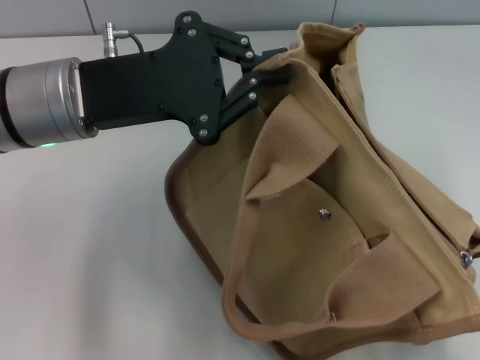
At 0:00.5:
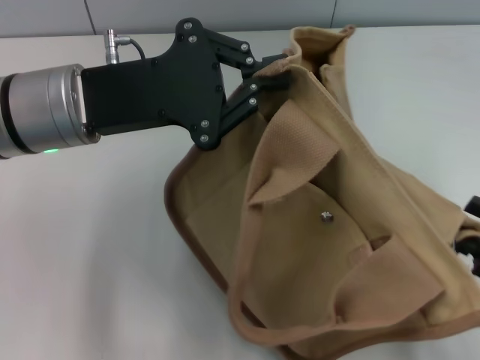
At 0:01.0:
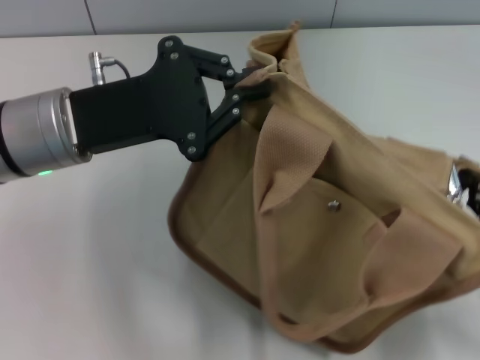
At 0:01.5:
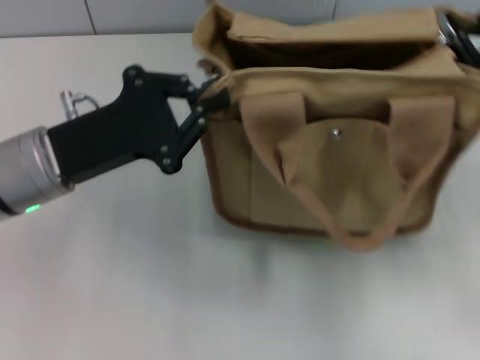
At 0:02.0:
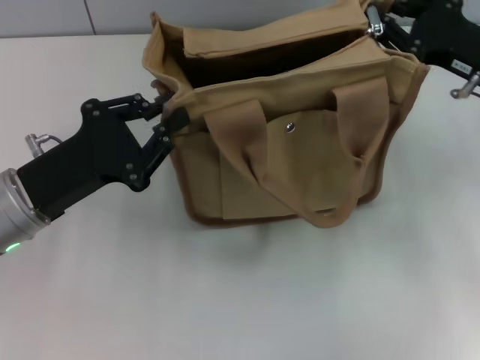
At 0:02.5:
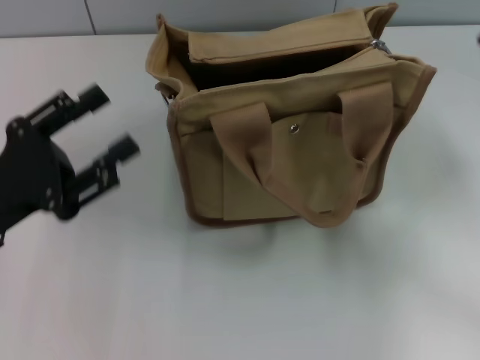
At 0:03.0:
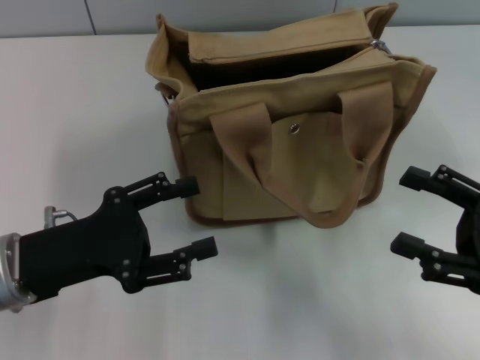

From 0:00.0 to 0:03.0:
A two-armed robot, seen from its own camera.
Step, from 0:00.5 to 0:02.0: Grab the bag with your left hand.
From 0:00.0 to 0:01.5: The right gripper goes some 20 cm forward, and opens, then closes once more. Meanwhile the left gripper goes about 5 cm downward.
From 0:01.5 to 0:03.0: The left gripper moves backward, approximately 5 cm, and opens up. Meanwhile the right gripper moves backward, some 10 cm, and opens up.
